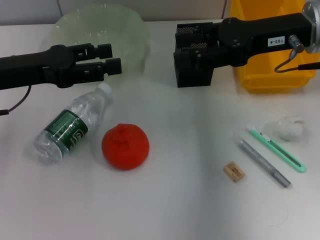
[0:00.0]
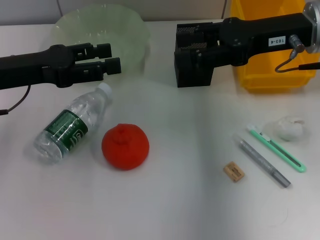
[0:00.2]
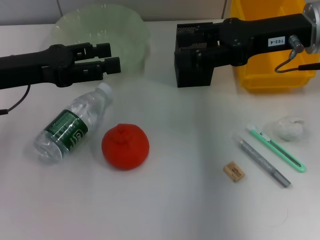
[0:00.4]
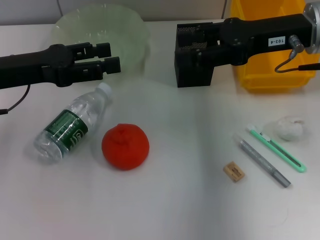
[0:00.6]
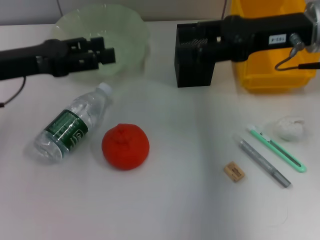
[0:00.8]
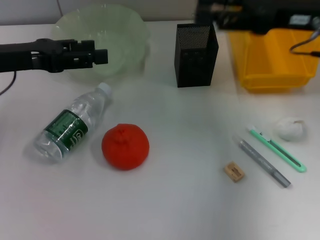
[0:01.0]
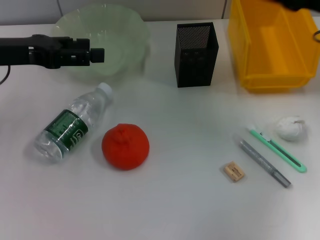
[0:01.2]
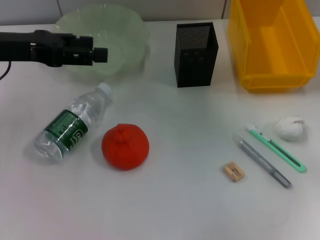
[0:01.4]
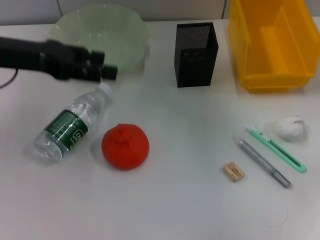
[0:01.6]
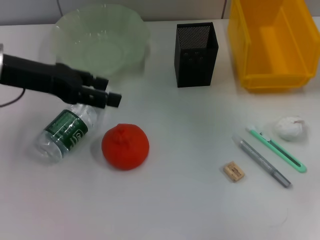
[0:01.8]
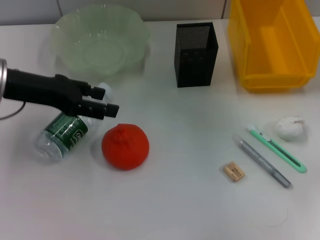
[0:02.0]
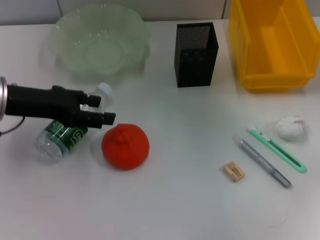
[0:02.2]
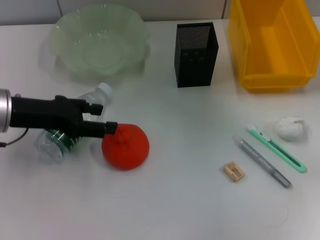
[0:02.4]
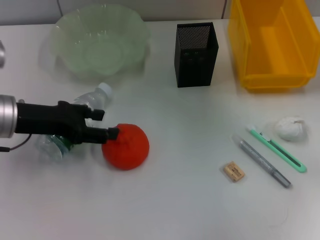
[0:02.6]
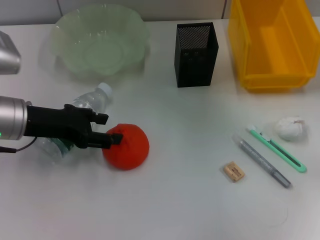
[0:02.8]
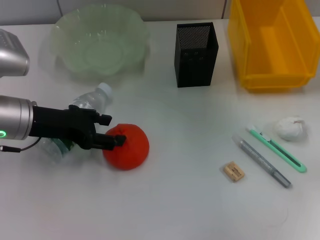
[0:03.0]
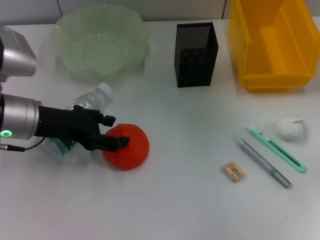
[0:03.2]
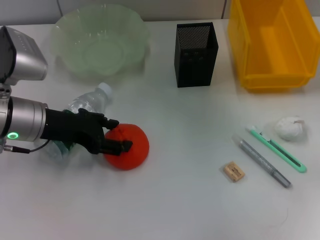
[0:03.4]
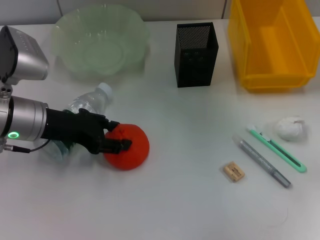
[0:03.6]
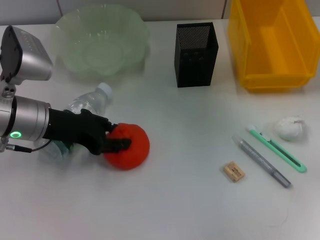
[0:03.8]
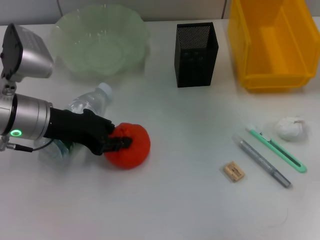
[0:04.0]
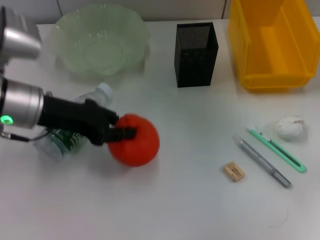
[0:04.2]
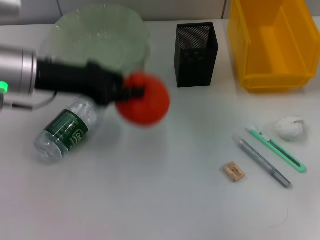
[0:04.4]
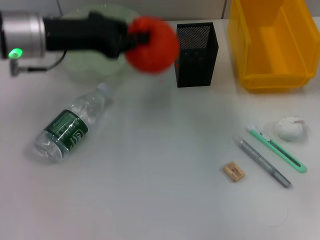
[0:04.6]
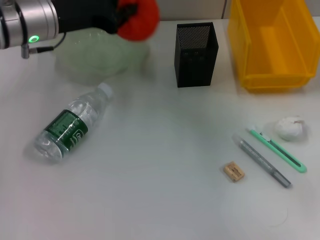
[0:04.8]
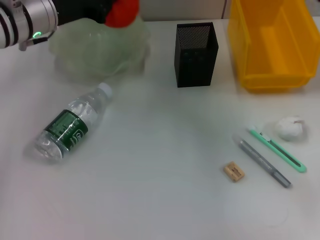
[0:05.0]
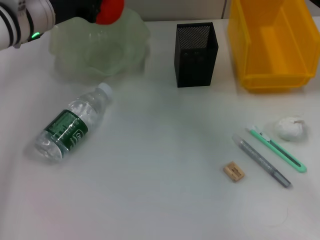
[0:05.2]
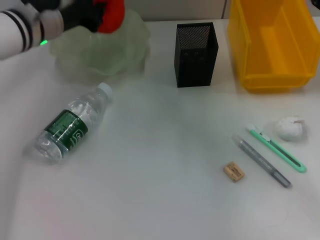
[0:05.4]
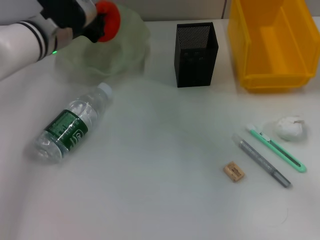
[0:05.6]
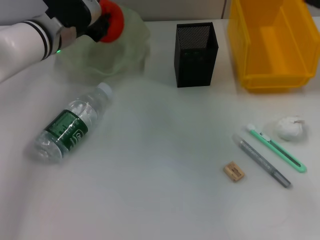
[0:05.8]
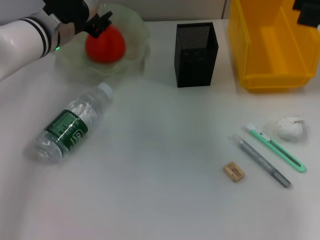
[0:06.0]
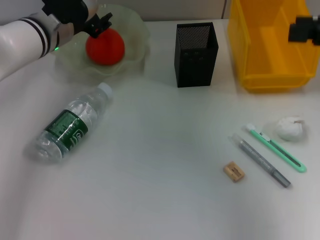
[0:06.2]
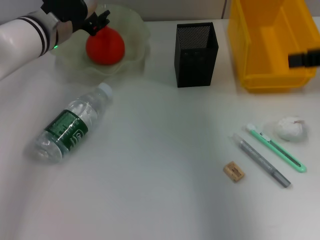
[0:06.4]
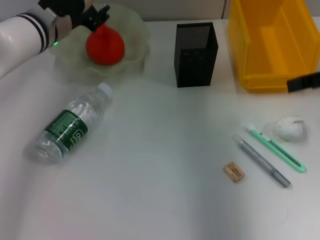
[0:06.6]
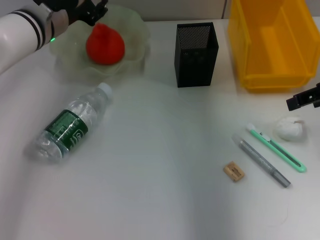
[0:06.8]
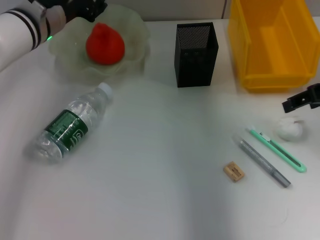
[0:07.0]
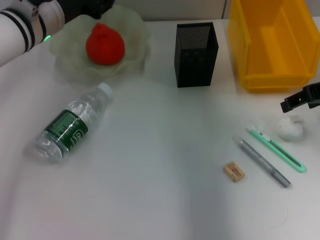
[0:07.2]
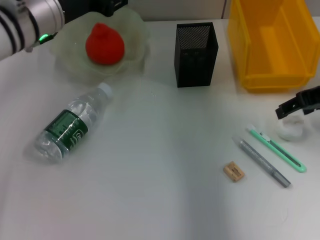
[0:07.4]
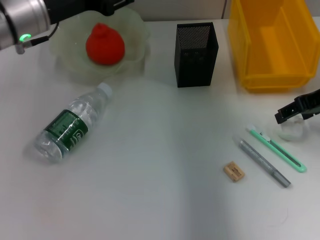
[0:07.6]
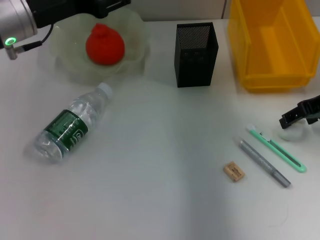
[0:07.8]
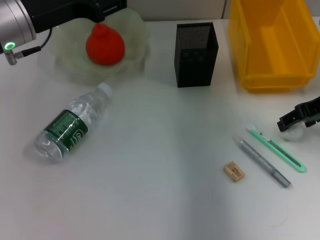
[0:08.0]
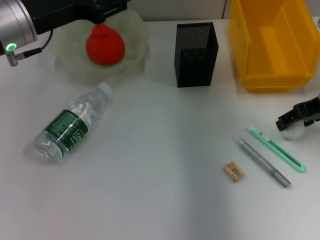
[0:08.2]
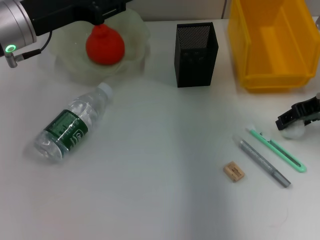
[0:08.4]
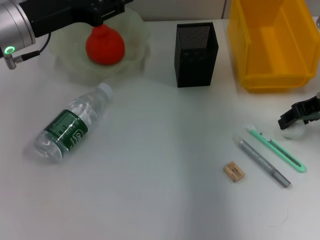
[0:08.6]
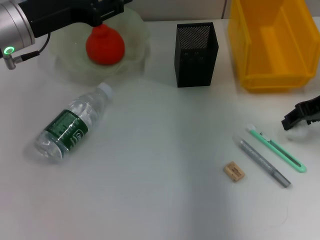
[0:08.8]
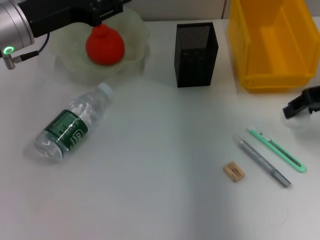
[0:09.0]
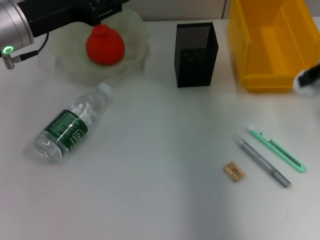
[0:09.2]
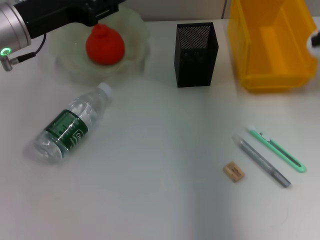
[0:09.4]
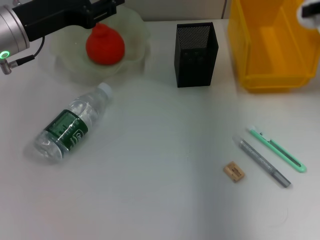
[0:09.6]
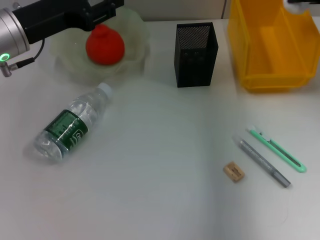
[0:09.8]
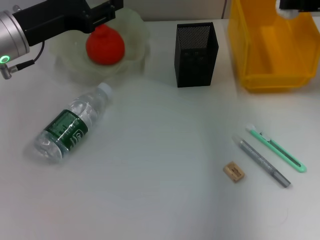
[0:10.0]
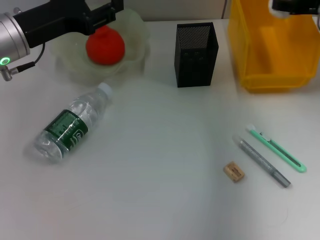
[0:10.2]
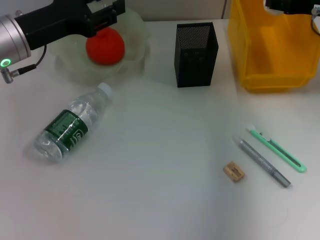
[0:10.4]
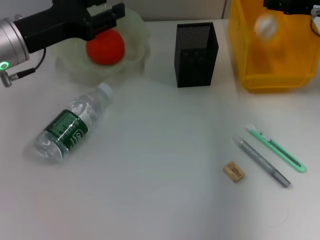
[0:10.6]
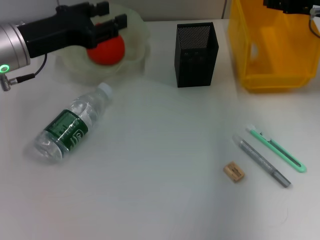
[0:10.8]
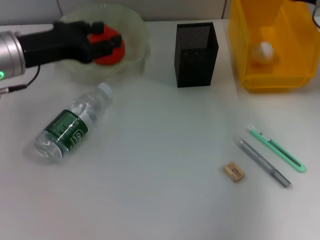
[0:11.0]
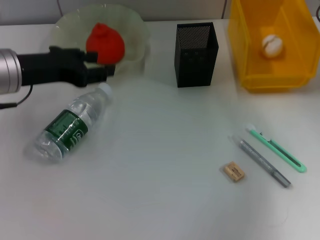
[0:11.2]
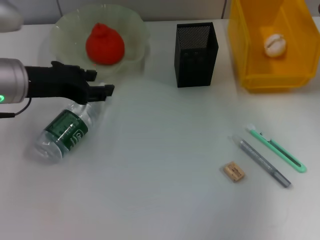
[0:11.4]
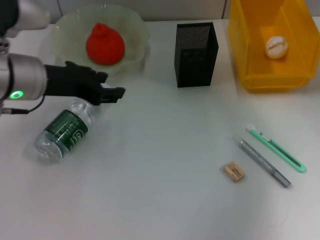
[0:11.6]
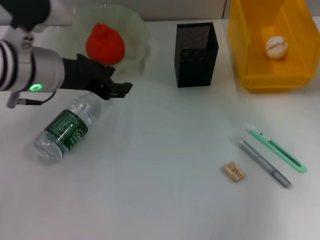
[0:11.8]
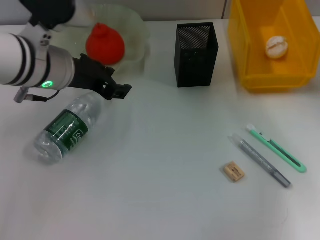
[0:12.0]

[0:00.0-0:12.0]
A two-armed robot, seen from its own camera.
Step, 0:00.0 to 0:03.8: Grab the orange with the left hand.
Step, 0:04.2 to 0:06.0: Place the orange into the fruit bowl with the left hand.
Step, 0:06.2 to 0:08.6: Grab the paper ball with the right hand.
Step, 0:08.8 to 0:10.6: Place the paper ball into the trash can with the right hand.
0:00.0 to 0:01.6: The right gripper heads to the right, covering about 10 cm; the left gripper shifts by some 5 cm.
0:01.6 to 0:03.0: The left gripper goes about 10 cm downward.
0:03.0 to 0:04.4: The left gripper goes about 5 cm upward, and closes its fingers.
0:04.4 to 0:06.0: The left gripper moves forward, about 10 cm, while the right gripper heads upward and backward, covering approximately 10 cm.
0:06.0 to 0:07.6: The right gripper goes some 10 cm forward and downward. The left gripper travels upward and backward by approximately 10 cm, and opens its fingers.
0:07.6 to 0:09.0: The right gripper closes up.
0:09.0 to 0:10.4: The right gripper travels forward by roughly 5 cm, and travels upward and back again, roughly 5 cm each way.
0:10.4 to 0:12.0: The right gripper opens its fingers. Meanwhile the left gripper moves to the right, about 5 cm.

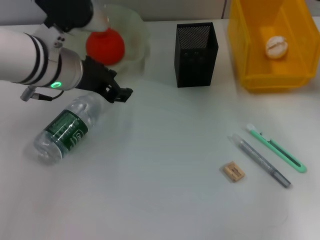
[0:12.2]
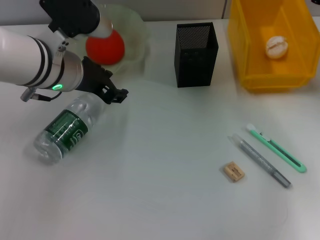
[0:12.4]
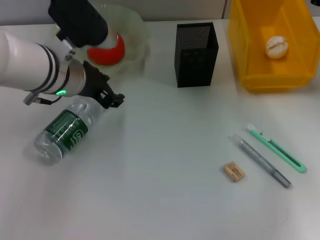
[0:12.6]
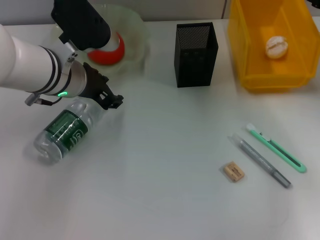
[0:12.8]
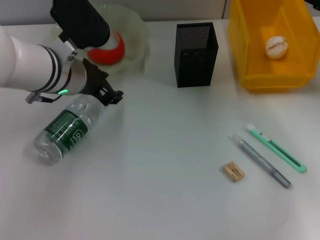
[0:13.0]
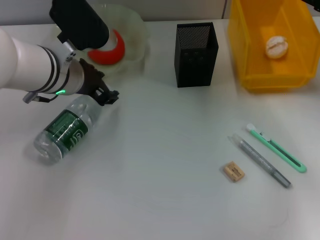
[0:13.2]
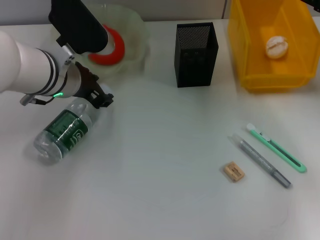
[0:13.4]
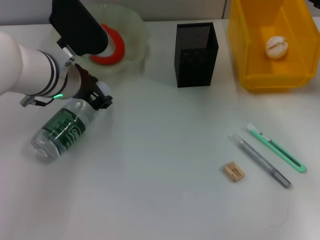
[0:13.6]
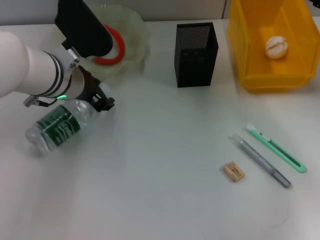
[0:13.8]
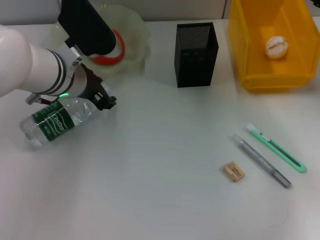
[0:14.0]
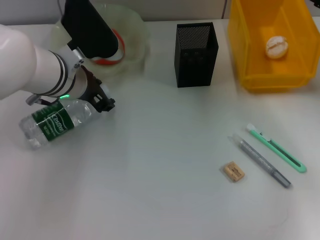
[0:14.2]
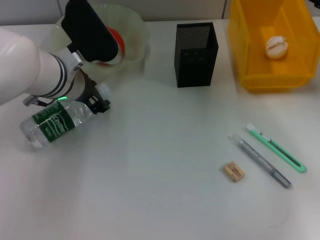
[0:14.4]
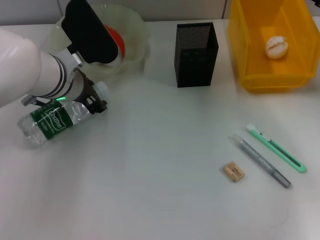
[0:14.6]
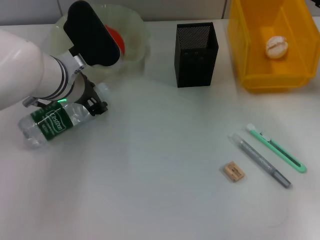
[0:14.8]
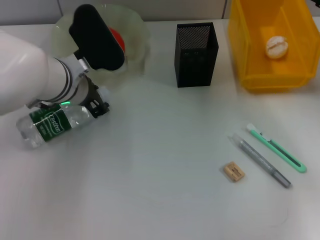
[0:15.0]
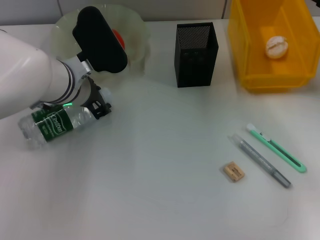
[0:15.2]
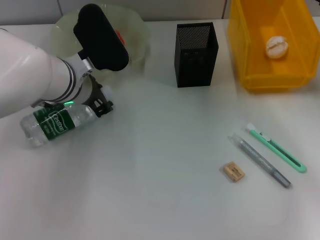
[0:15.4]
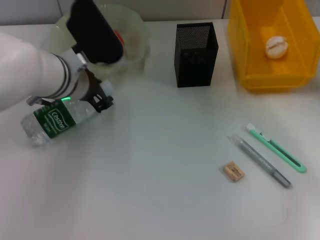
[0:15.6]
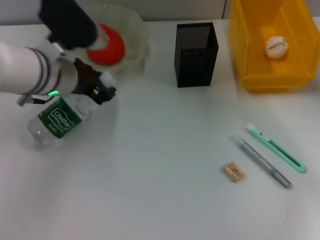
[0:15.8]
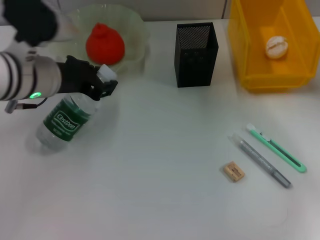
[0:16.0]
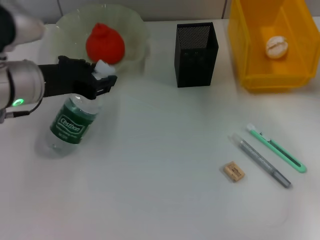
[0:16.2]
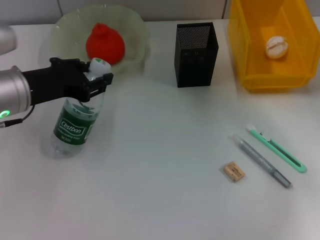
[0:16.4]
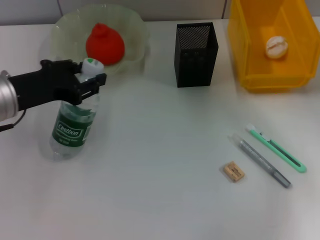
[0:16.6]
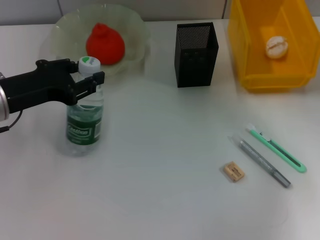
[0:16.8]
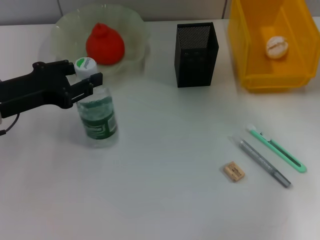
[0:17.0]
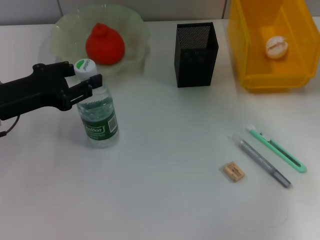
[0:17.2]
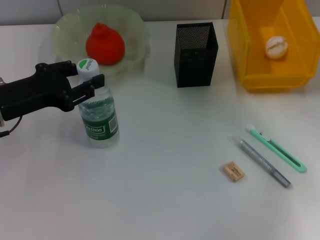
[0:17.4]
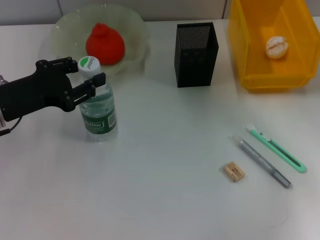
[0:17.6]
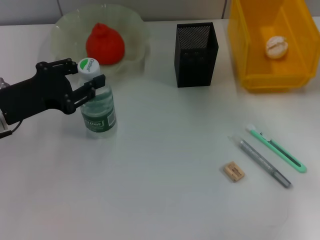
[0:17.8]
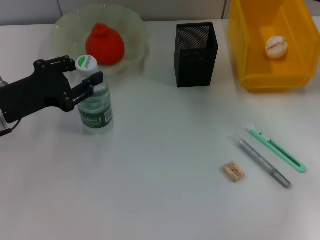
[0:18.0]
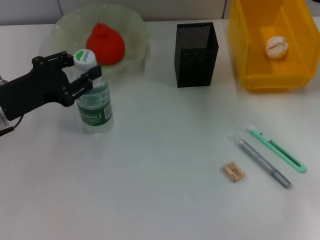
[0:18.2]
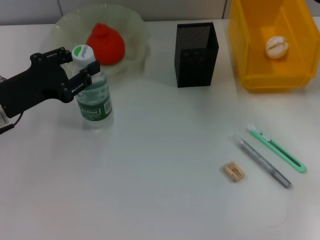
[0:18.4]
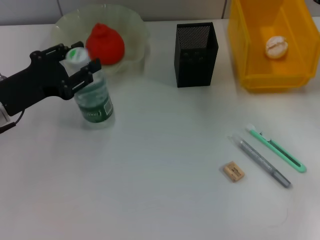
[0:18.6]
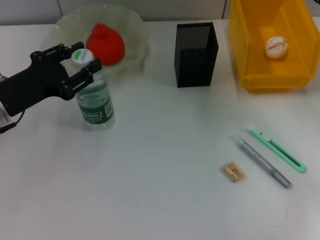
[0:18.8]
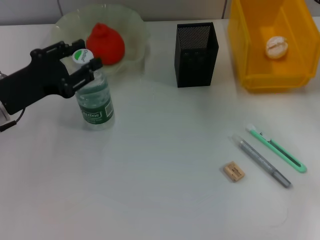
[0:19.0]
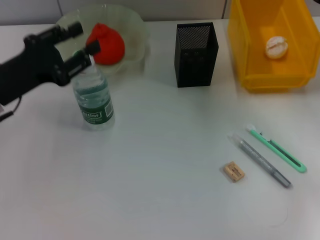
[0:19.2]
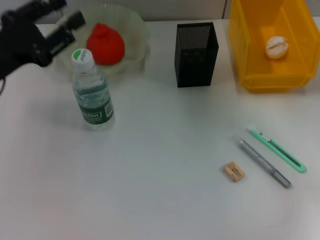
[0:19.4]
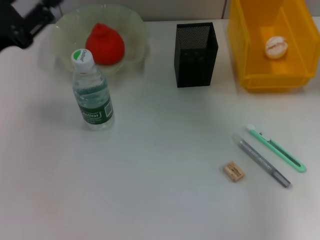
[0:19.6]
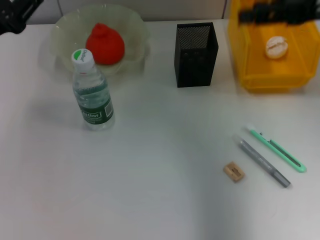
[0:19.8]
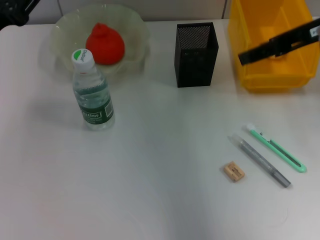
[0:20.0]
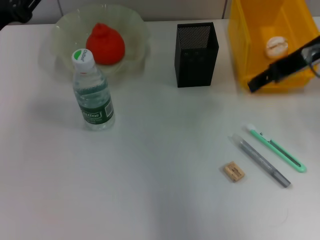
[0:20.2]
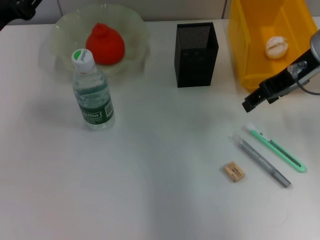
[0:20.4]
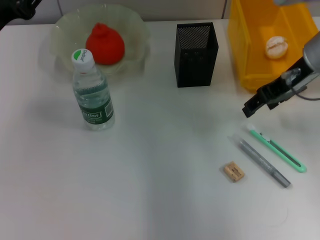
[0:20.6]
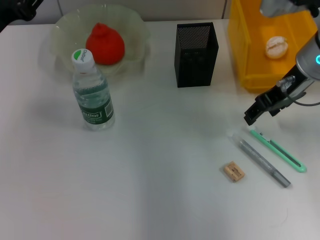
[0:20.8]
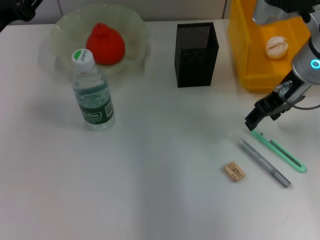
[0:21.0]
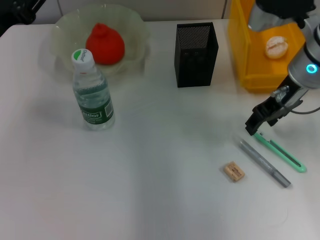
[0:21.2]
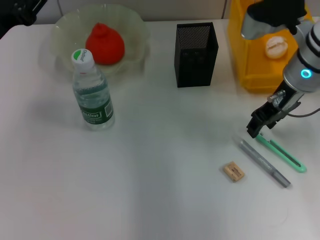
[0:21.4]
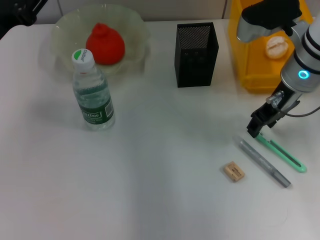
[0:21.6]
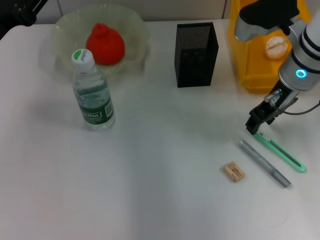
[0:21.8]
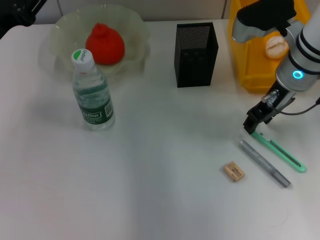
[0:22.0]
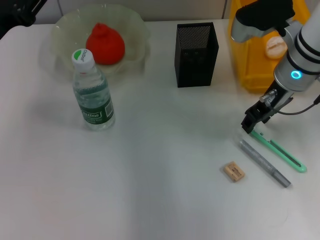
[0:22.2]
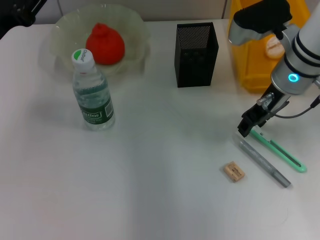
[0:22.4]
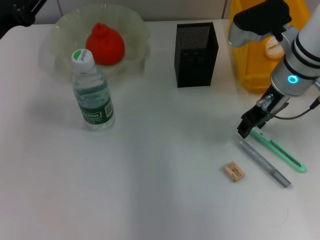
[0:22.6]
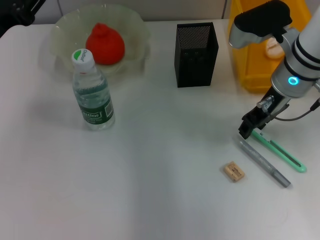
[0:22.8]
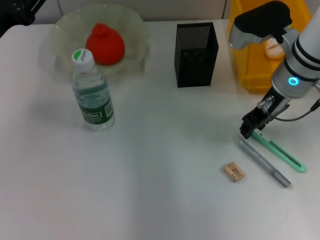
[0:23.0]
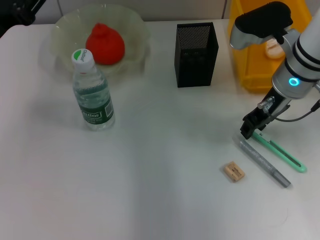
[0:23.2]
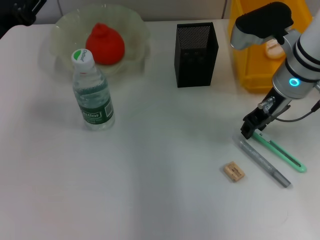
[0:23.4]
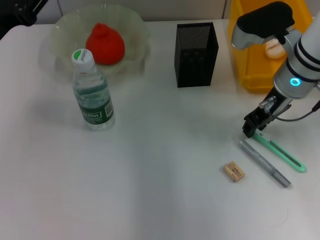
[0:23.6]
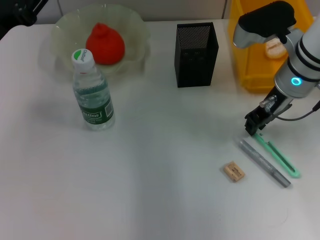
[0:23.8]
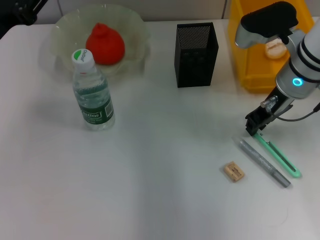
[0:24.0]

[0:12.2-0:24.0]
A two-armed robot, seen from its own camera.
Step, 0:12.2 to 0:14.8: Grab the water bottle with the left hand.
Step, 0:15.2 to 0:18.8: Place the water bottle on the table with the left hand.
0:12.2 to 0:13.6: The grippers make only small movements.
0:13.6 to 0:15.2: There are only small adjustments of the grippers.
0:15.2 to 0:16.6: The left gripper shifts approximately 10 cm to the left and backward.
0:16.6 to 0:18.2: The grippers move only a little.
0:18.2 to 0:19.6: The left gripper ends up approximately 5 cm from where it was.
0:19.6 to 0:21.0: The right gripper moves to the left, some 10 cm.
0:21.0 to 0:22.6: The right gripper closes.
0:22.6 to 0:24.0: The right gripper closes.
